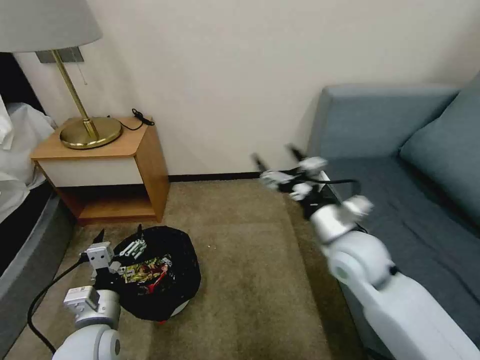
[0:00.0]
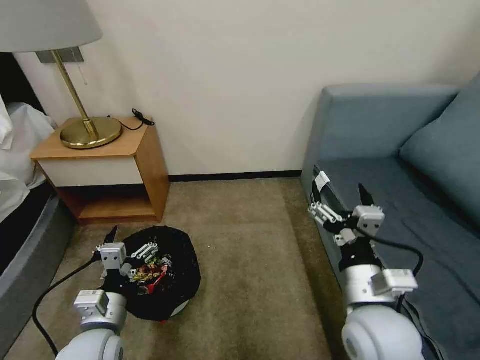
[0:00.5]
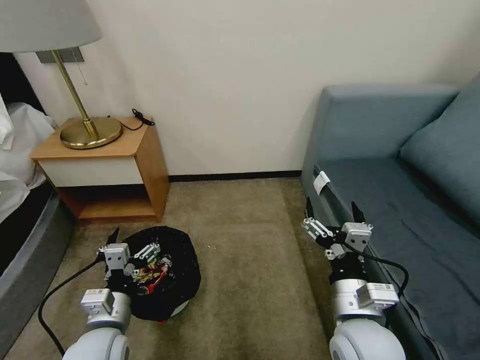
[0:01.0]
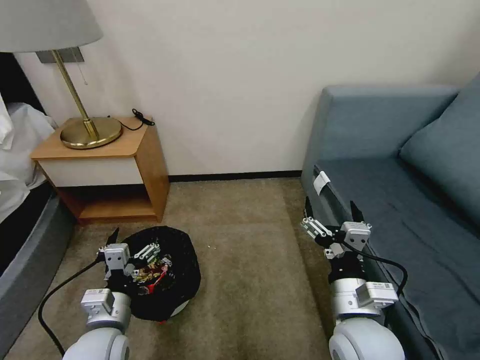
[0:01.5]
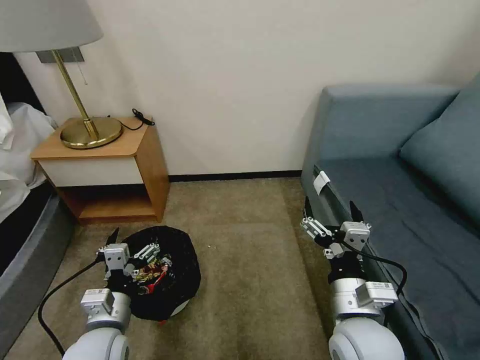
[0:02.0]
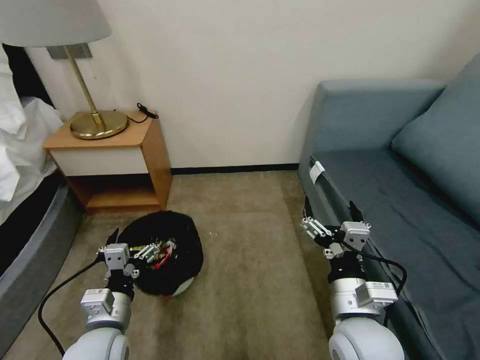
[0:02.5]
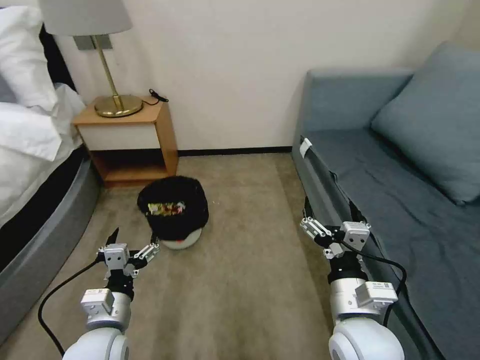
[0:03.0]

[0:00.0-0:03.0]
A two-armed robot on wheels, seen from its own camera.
Task of the whole recording: Pick up the trash bin, then pick up the garbage on the floor and place it into the trash bin.
0:00.0 to 0:01.5: The right gripper is displaced backward by approximately 15 cm.
